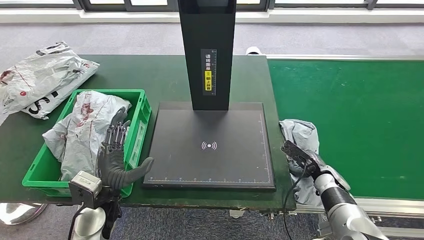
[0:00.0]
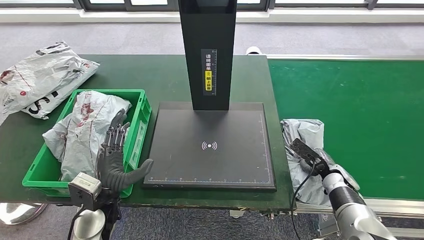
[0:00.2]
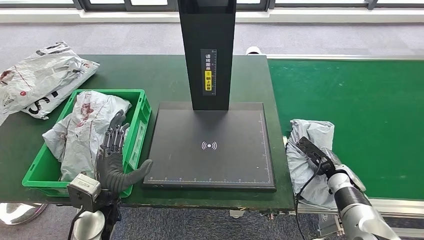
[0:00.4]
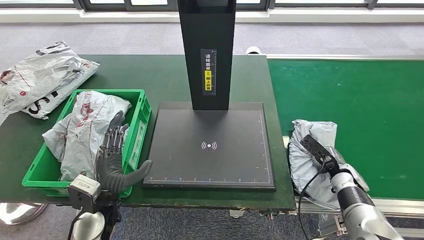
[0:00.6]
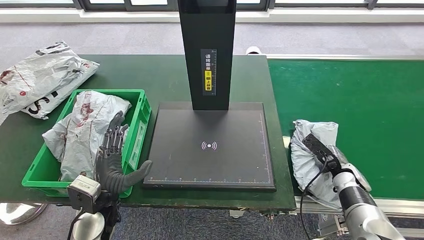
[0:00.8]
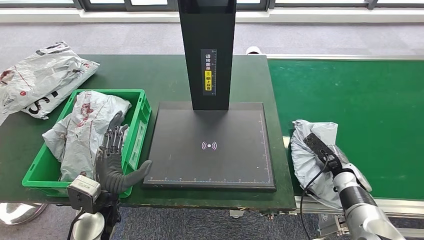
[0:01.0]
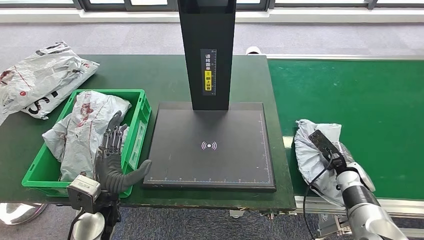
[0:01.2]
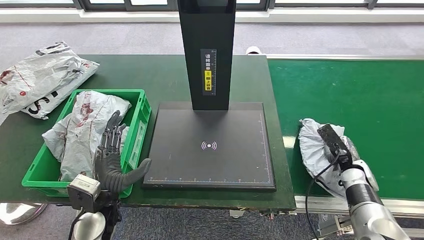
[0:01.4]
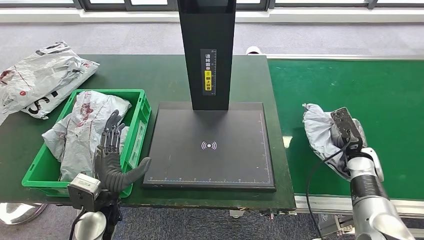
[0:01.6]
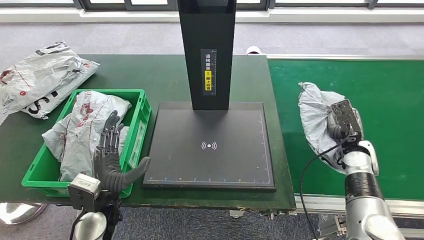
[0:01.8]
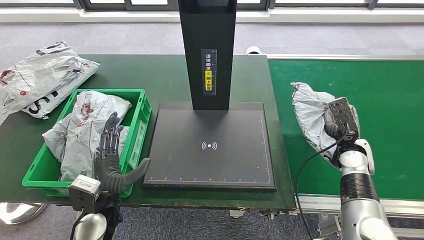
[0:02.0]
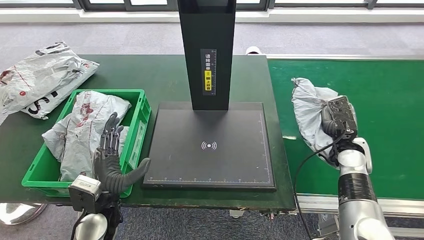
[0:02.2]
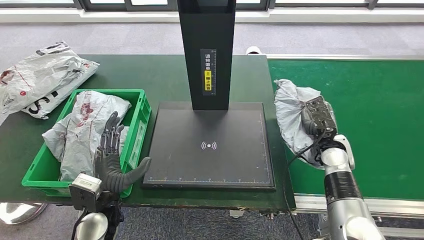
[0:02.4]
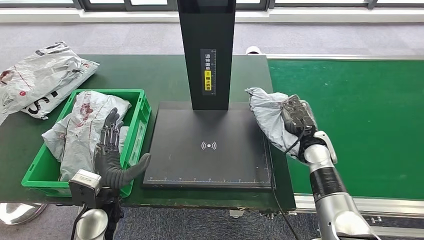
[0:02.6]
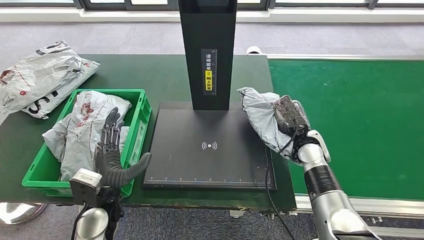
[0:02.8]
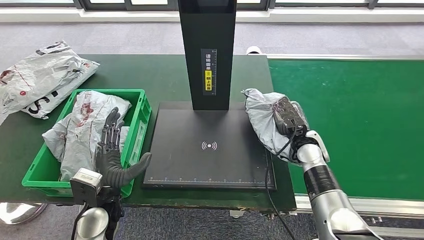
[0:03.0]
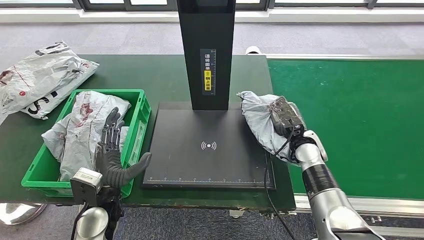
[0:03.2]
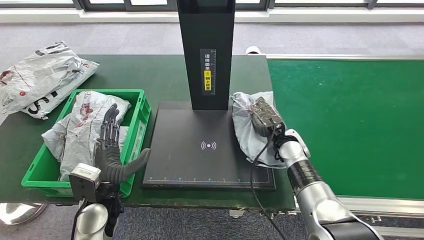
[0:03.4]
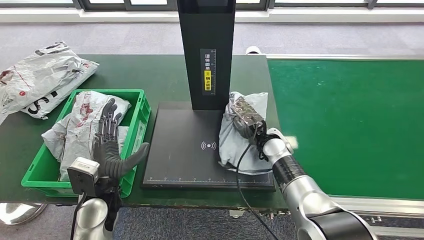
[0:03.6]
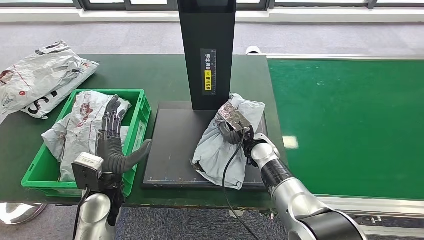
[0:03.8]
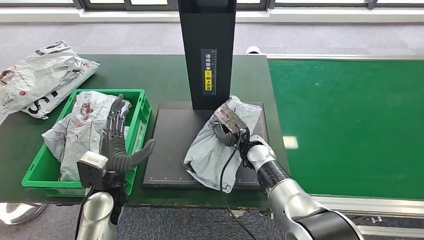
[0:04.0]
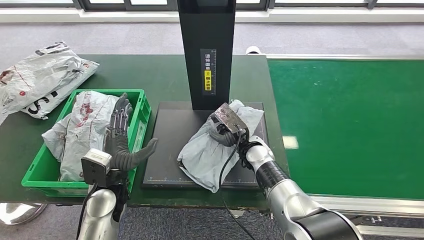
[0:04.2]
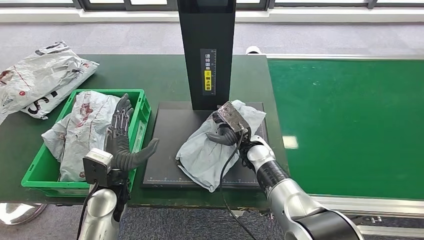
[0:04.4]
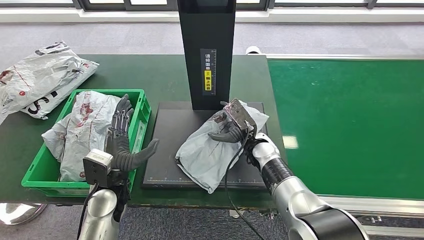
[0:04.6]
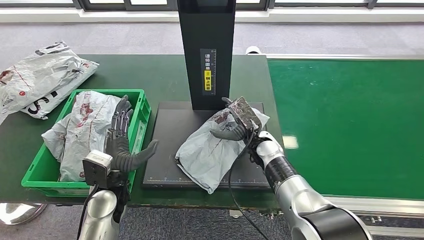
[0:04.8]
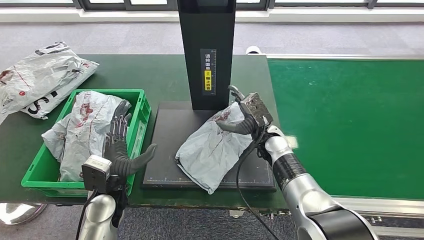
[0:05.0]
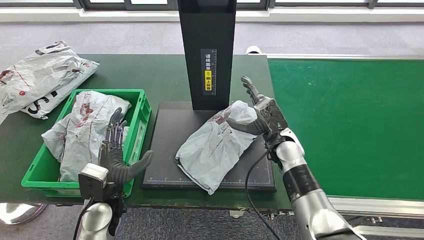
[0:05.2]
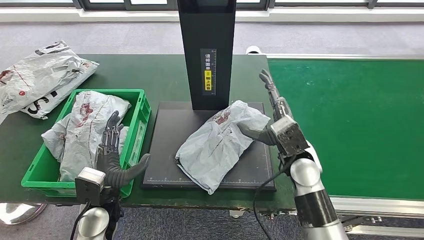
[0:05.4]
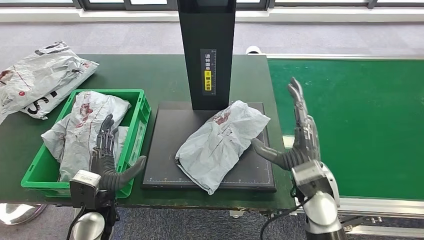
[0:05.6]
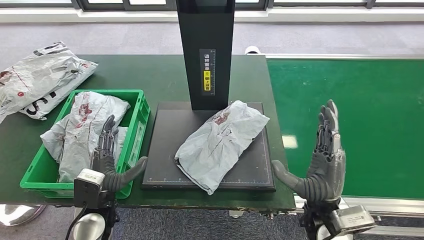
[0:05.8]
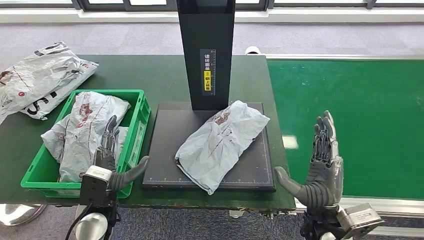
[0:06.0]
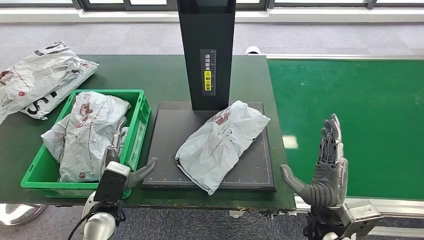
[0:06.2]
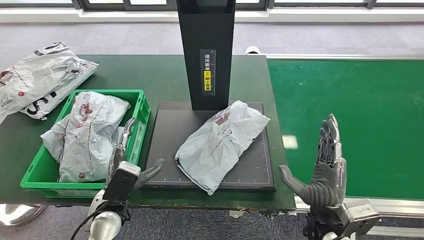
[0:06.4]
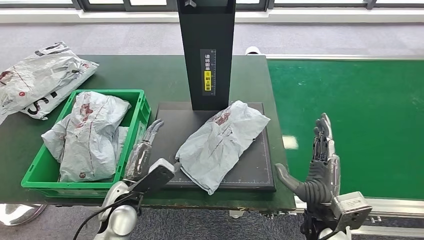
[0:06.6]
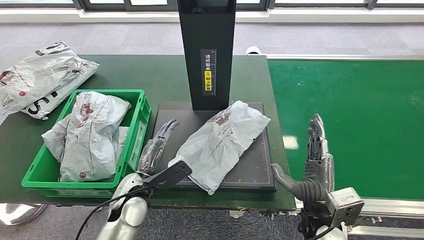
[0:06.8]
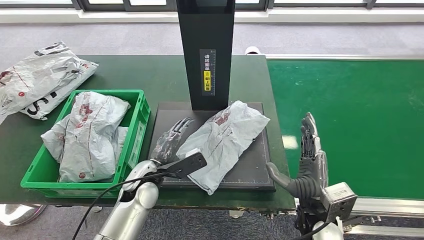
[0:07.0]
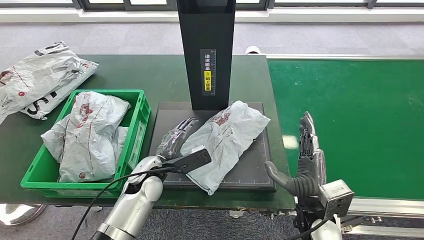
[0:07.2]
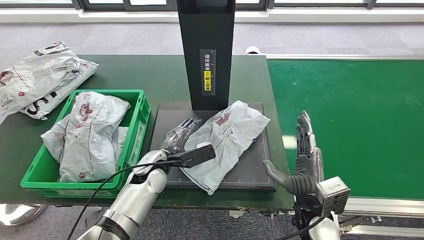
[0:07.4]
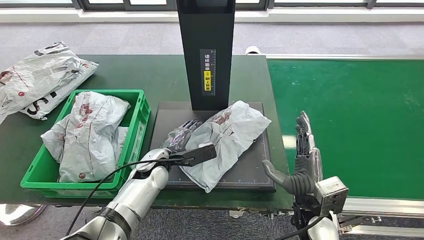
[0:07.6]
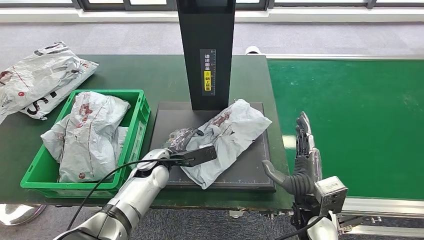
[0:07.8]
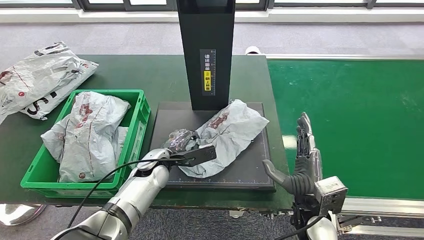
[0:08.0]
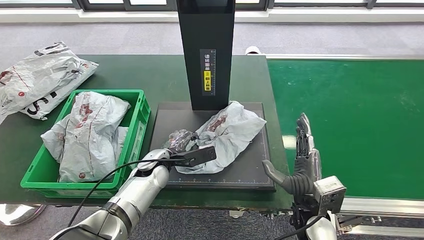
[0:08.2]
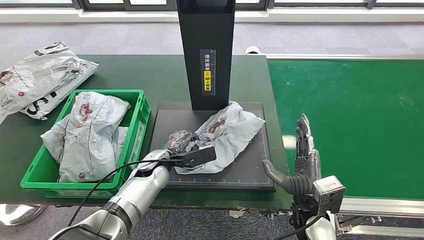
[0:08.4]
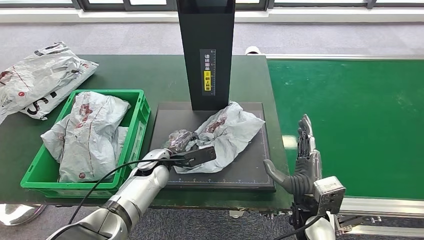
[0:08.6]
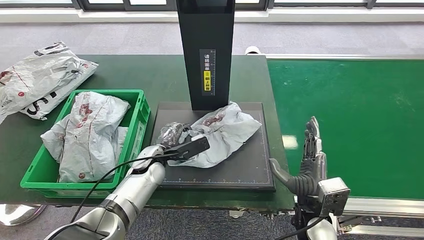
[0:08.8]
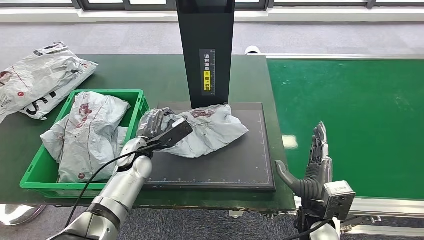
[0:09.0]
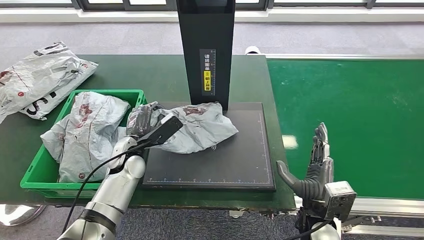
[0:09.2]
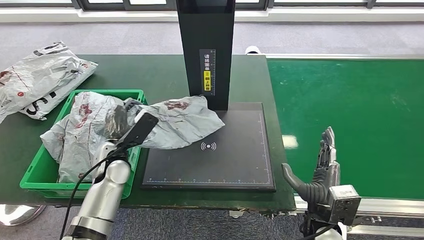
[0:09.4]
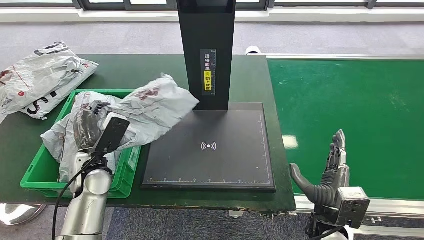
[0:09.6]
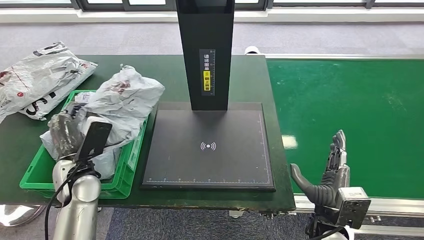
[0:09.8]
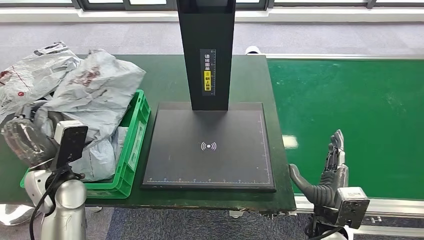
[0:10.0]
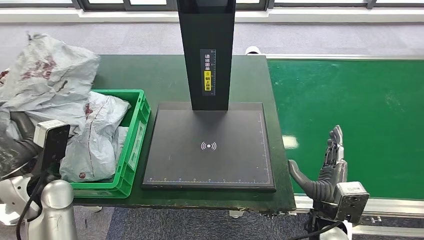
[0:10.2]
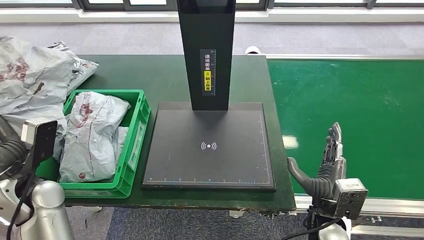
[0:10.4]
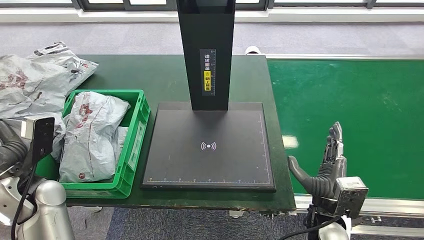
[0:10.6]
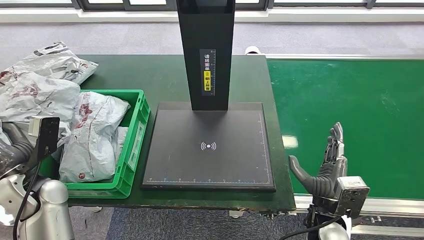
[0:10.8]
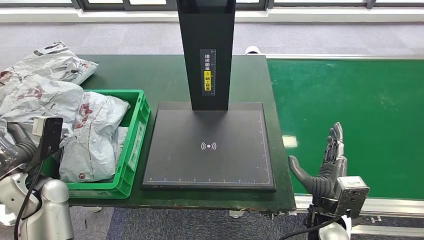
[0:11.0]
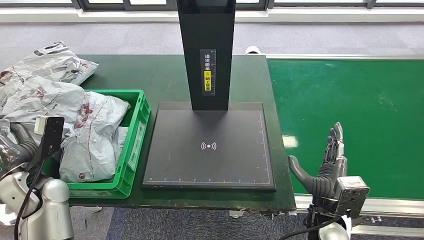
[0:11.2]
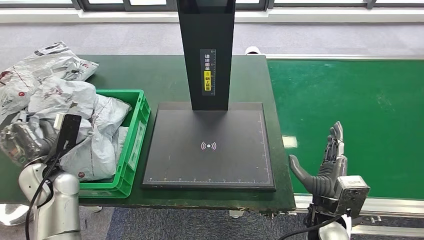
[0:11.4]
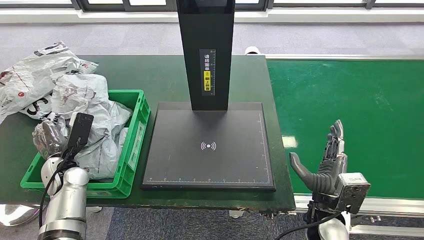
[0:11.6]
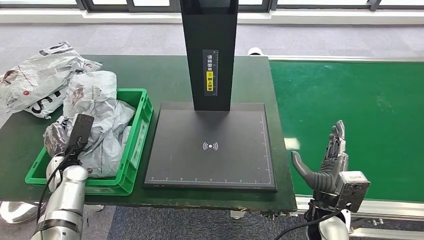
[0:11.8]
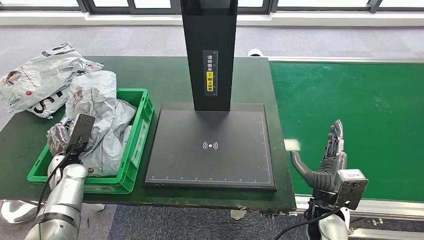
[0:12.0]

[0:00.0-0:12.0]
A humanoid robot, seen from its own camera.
Step, 0:00.0 to 0:02.4: Pick up the parcel from the conveyor belt.
Step, 0:02.8 to 0:05.2: Place the parcel onto the inbound machine.
Step, 0:05.6 to 0:09.8: Pick up the parcel from the inbound machine.
0:00.0 to 0:01.6: The right hand heads to the right and upward, covering some 10 cm.
0:01.6 to 0:03.0: The right hand shifts roughly 15 cm to the left.
0:03.0 to 0:04.4: The right hand is displaced to the left by about 15 cm.
0:04.4 to 0:06.0: The left hand moves approximately 5 cm; the right hand travels backward and to the right by roughly 20 cm.
0:06.0 to 0:07.6: The left hand shifts about 15 cm forward and to the right.
0:07.6 to 0:09.0: The left hand ends up some 5 cm from where it was.

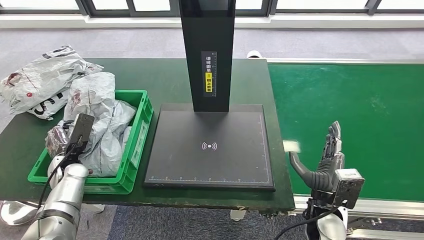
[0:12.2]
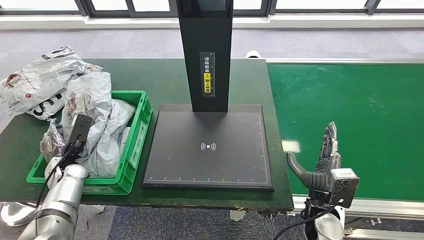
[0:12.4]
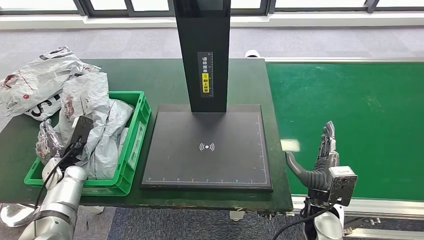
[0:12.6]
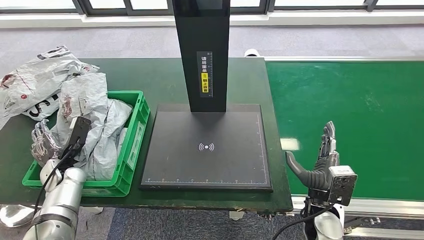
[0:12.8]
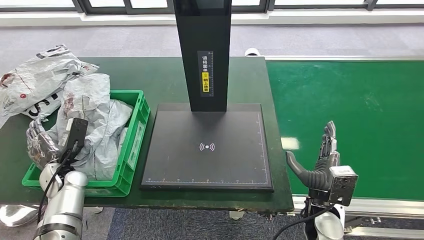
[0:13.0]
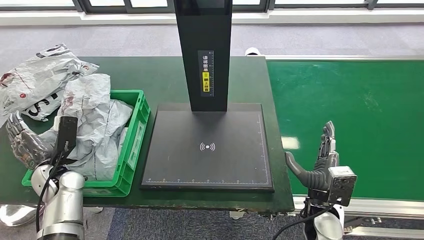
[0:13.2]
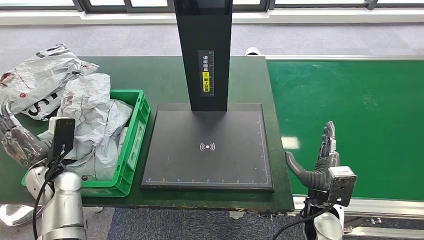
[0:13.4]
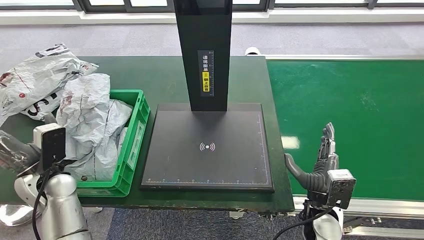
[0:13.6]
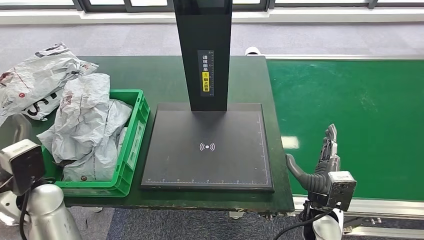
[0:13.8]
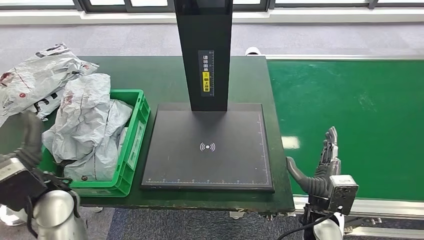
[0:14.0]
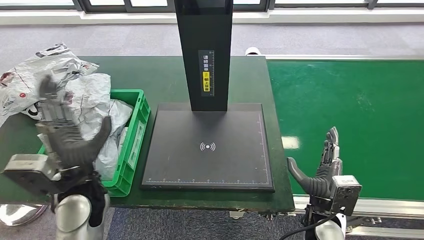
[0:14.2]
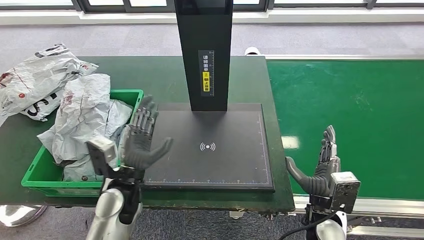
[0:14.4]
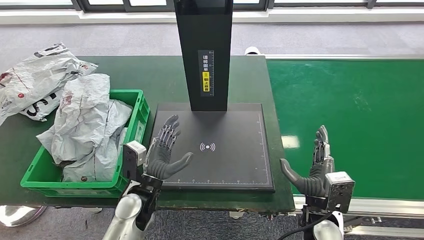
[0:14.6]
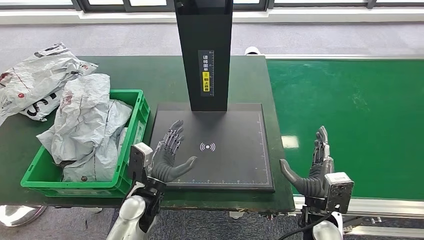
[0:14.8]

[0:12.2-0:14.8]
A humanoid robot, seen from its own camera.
Step, 0:12.2 to 0:14.8: Place the parcel into the delivery box.
0:13.4 to 0:14.8: The left hand moves to the right, roughly 25 cm.

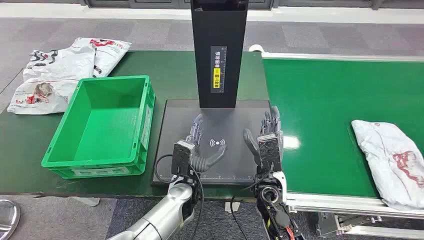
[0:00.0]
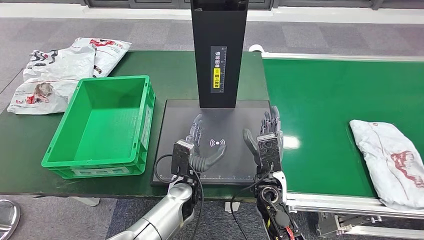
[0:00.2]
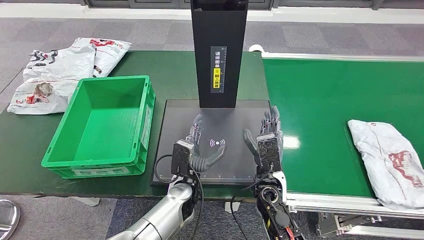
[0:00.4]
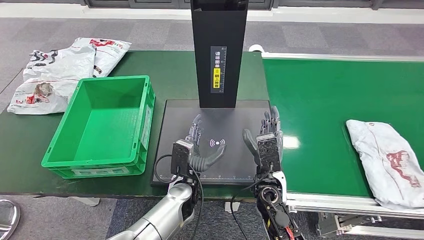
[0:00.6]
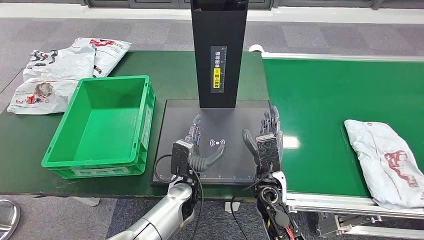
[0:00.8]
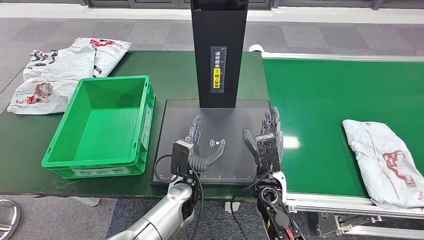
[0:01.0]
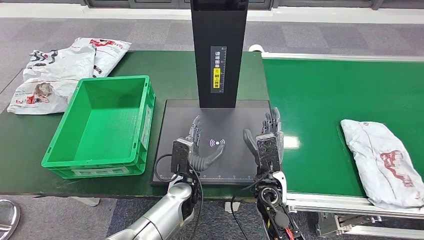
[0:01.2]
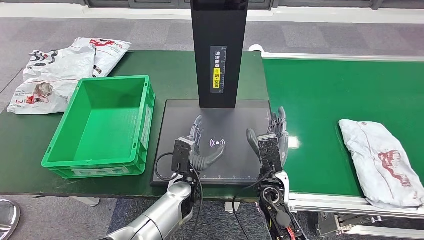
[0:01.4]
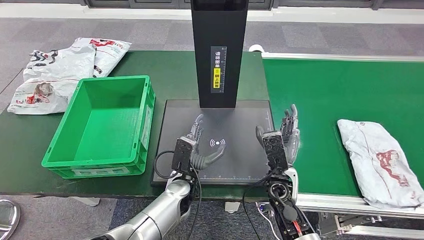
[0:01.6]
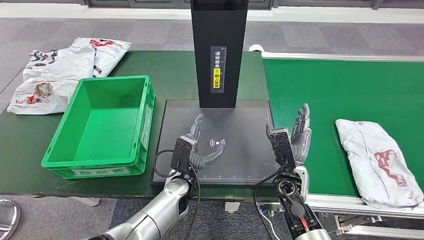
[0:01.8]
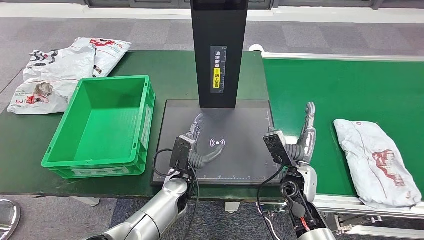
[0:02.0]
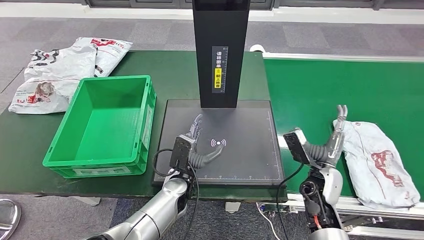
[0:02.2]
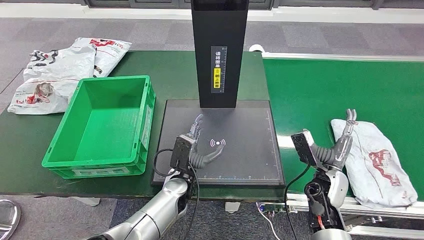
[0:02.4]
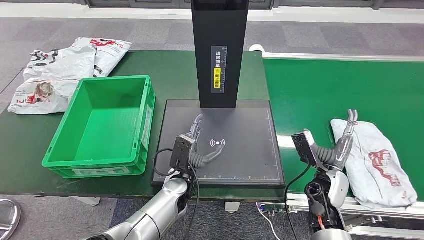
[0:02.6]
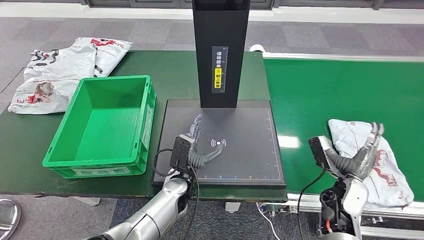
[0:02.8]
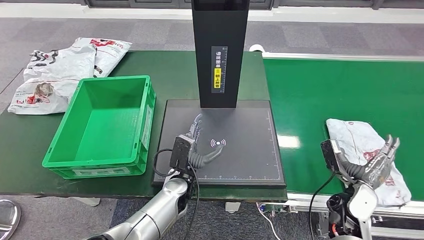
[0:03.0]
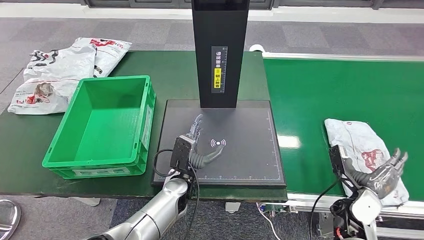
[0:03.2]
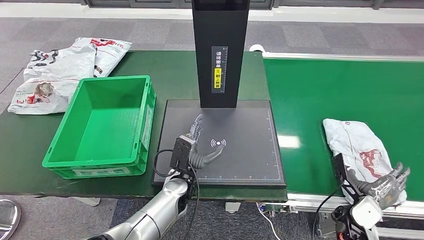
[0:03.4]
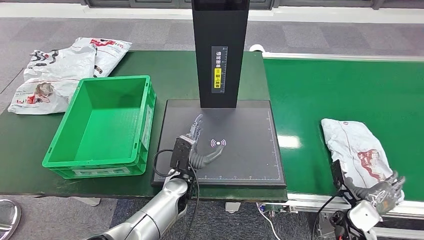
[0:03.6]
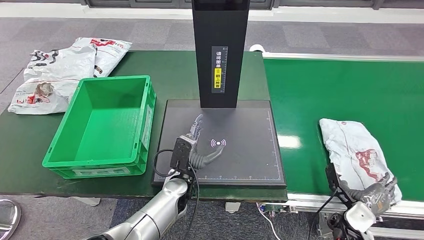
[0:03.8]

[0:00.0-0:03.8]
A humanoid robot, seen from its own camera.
0:01.2 to 0:02.6: The right hand shifts roughly 15 cm to the right.
0:02.6 to 0:03.8: The right hand is displaced to the right, downward and backward by roughly 15 cm.
